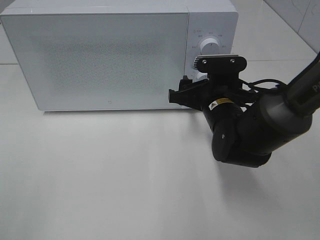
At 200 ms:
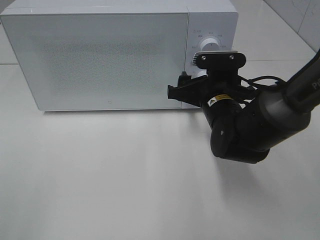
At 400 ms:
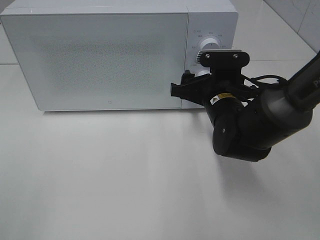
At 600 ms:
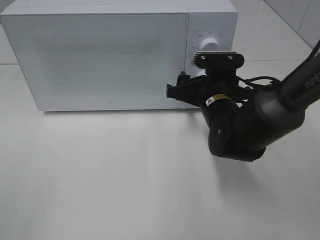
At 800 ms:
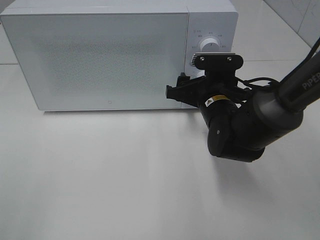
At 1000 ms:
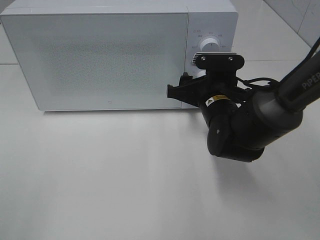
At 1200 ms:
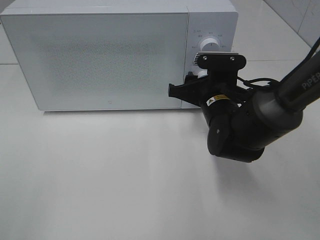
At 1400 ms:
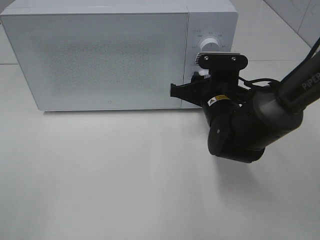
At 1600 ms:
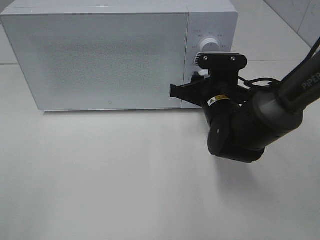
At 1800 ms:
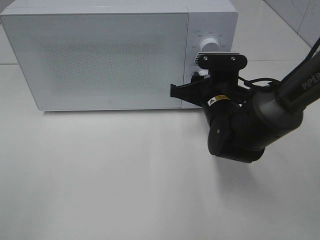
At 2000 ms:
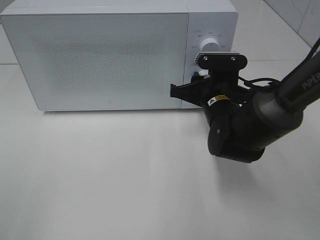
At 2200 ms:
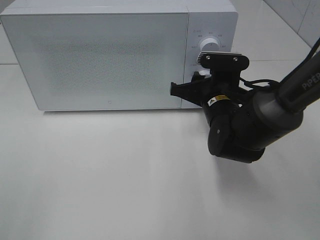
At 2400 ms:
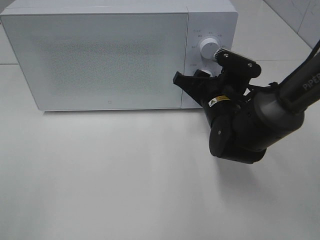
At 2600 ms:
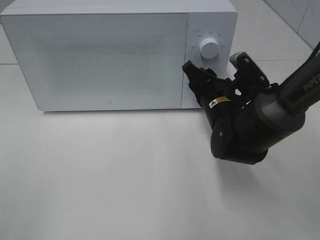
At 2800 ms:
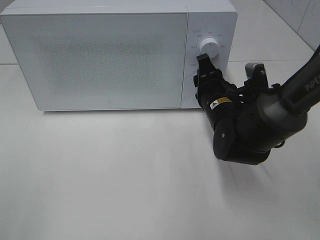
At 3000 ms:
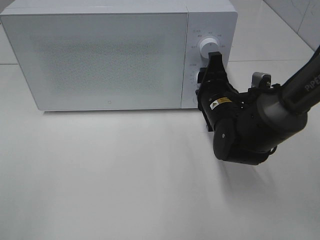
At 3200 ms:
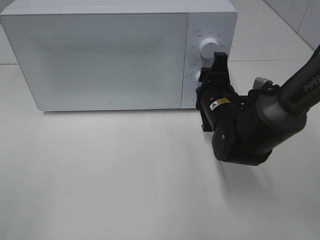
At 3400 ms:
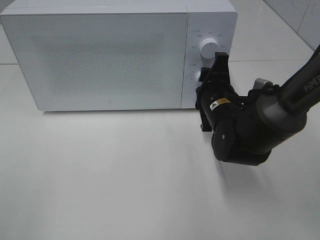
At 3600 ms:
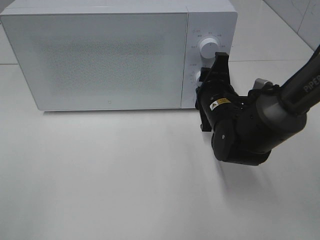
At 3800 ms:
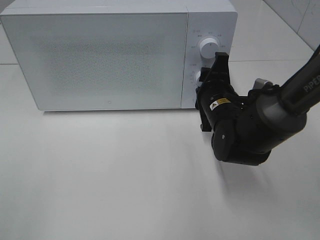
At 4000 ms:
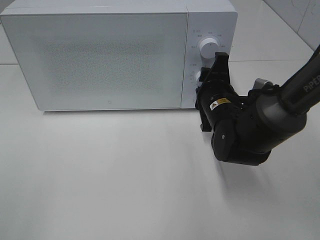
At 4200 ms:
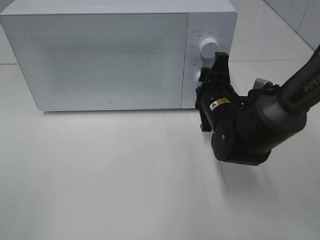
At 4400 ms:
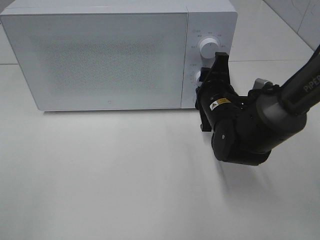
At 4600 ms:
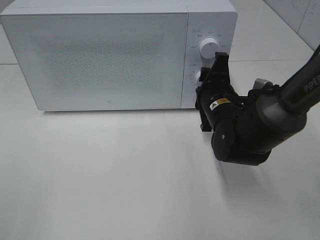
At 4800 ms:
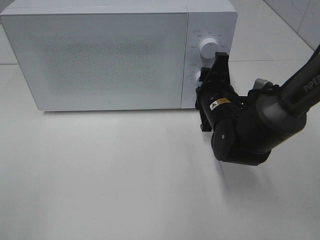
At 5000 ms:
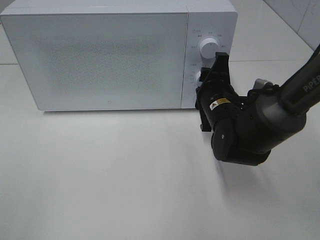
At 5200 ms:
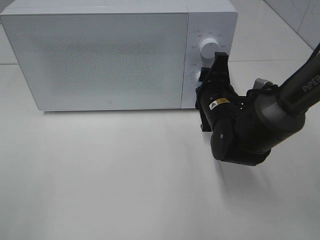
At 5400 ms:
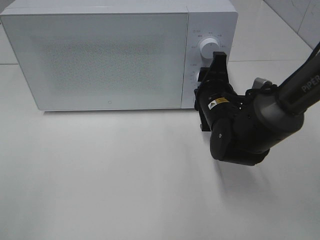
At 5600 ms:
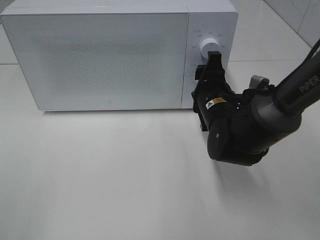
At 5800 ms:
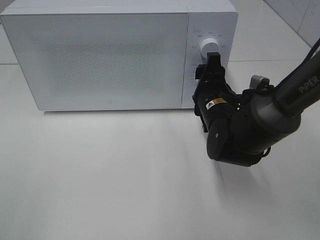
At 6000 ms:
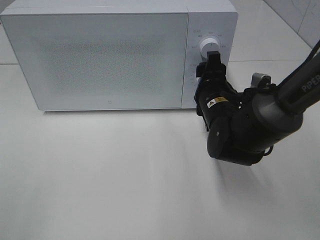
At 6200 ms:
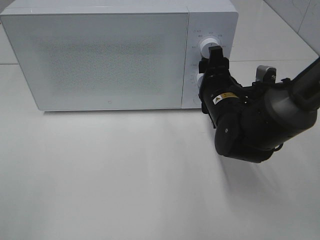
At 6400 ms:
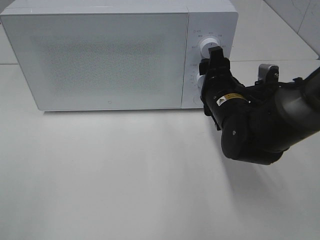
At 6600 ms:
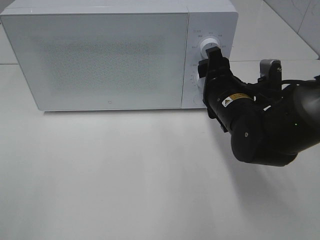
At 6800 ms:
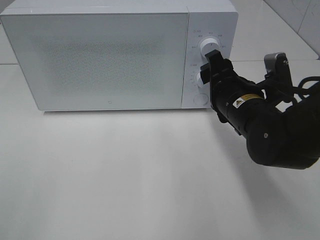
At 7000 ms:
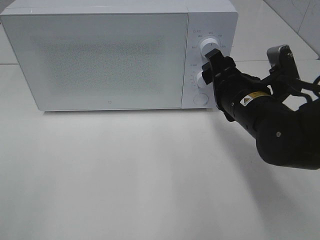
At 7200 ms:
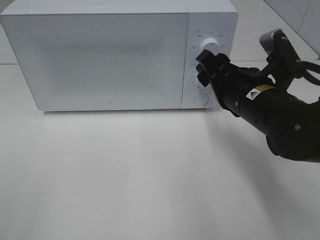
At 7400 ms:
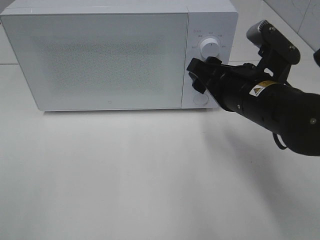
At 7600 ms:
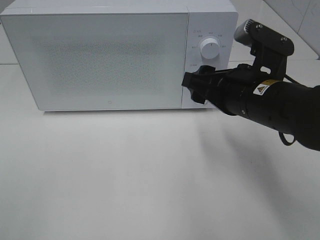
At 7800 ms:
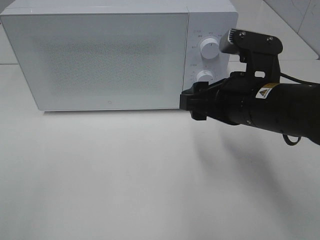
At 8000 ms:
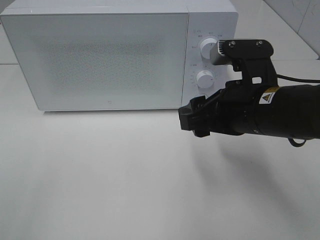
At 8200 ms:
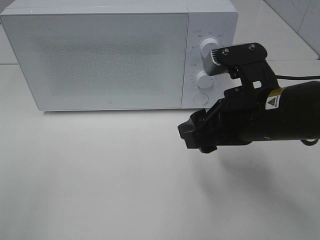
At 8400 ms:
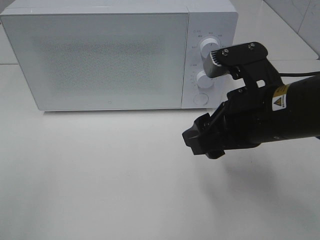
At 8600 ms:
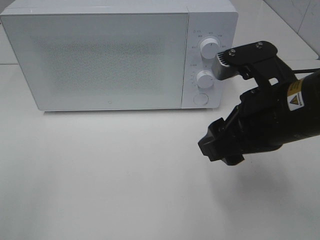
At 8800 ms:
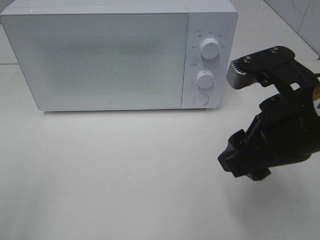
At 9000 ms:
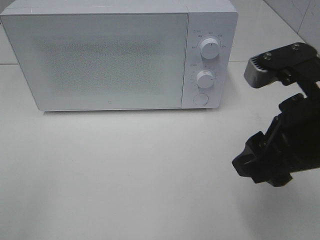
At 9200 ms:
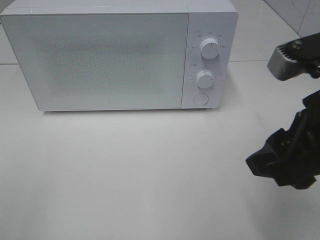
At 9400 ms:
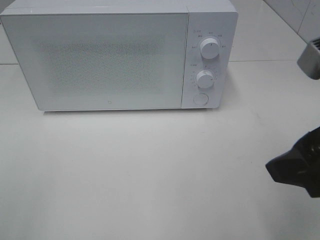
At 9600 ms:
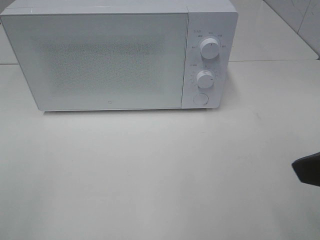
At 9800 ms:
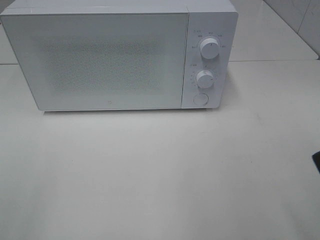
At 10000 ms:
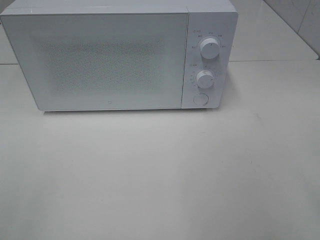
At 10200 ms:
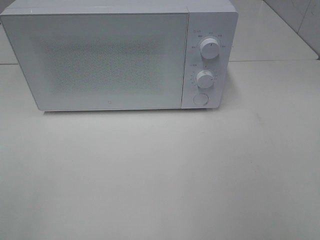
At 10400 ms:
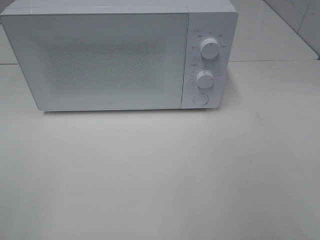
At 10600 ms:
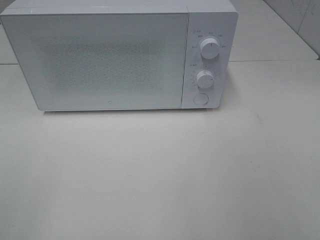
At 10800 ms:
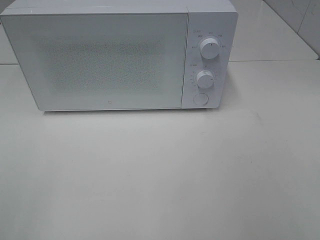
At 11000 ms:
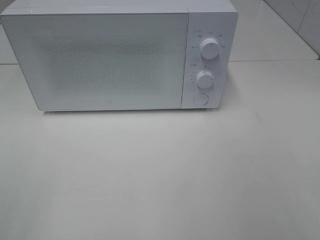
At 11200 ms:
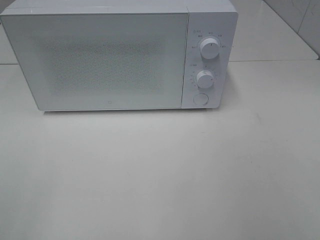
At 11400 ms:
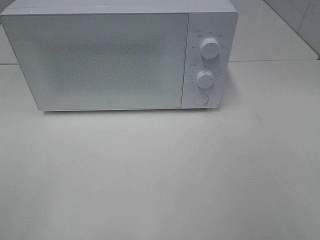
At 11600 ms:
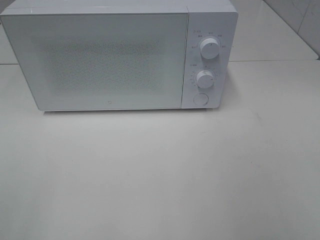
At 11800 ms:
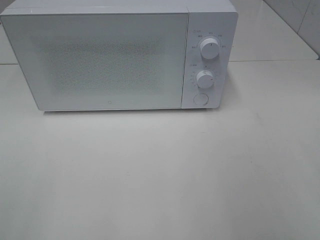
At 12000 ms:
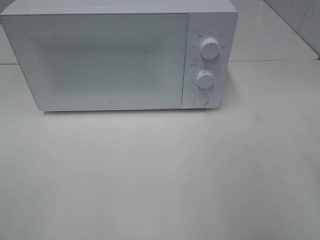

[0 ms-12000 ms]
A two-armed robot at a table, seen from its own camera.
Task of the whole recording: Heat the burger.
Step, 0 ms to 5600 ms: Right hand: twist timer button.
0 ms to 1600 ms: The right gripper closes its fingers.
3000 ms to 6000 ms: The grippers make only small movements.
6000 ms to 7600 ms: The right gripper is displaced upward and backward by some 10 cm.
7600 ms to 9000 ms: The right gripper goes approximately 10 cm backward and upward.
9000 ms to 10400 ms: The right gripper travels backward and to the right by some 15 cm.

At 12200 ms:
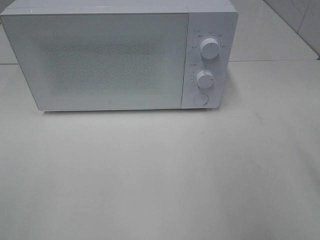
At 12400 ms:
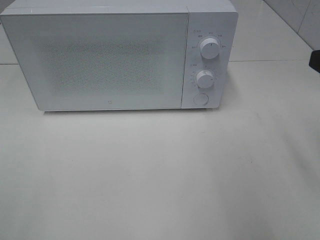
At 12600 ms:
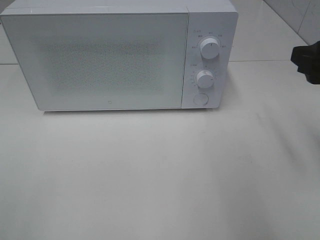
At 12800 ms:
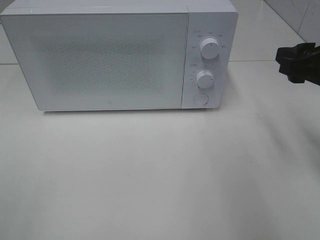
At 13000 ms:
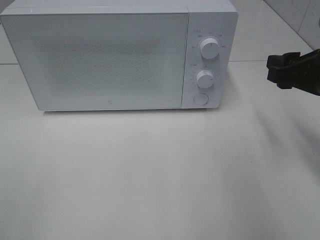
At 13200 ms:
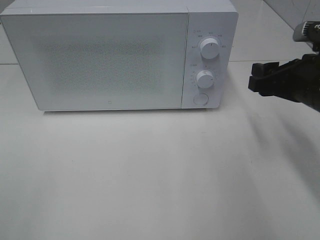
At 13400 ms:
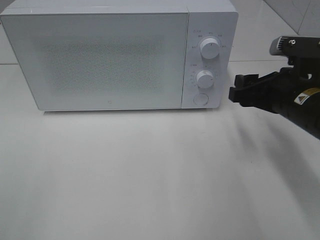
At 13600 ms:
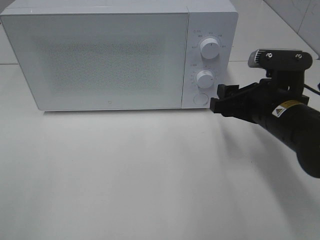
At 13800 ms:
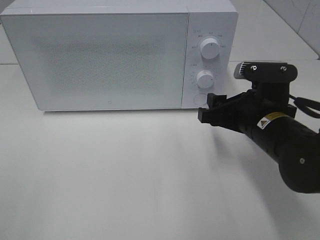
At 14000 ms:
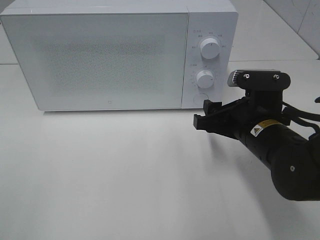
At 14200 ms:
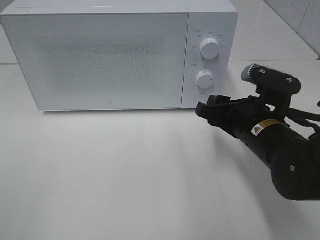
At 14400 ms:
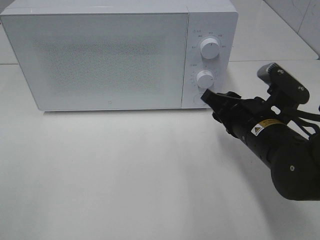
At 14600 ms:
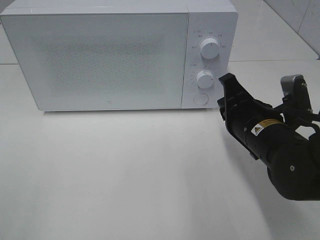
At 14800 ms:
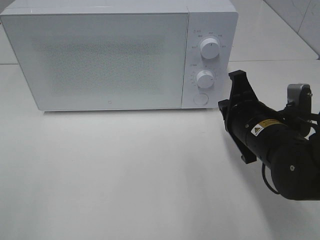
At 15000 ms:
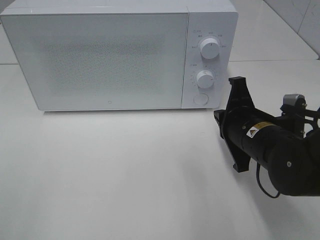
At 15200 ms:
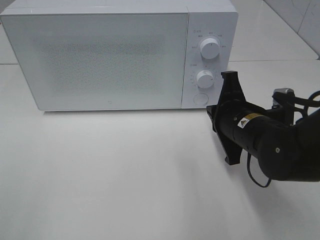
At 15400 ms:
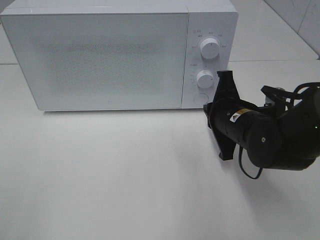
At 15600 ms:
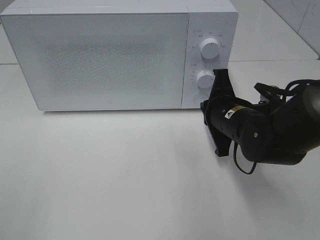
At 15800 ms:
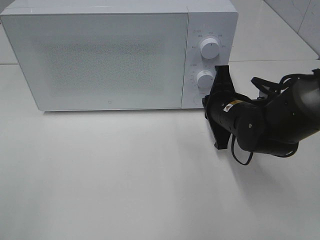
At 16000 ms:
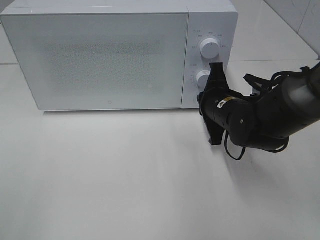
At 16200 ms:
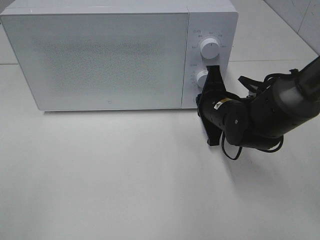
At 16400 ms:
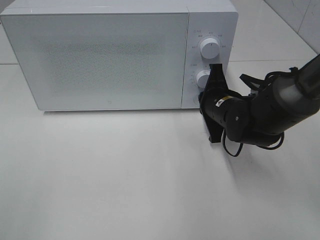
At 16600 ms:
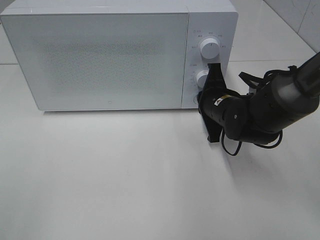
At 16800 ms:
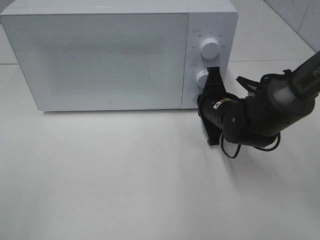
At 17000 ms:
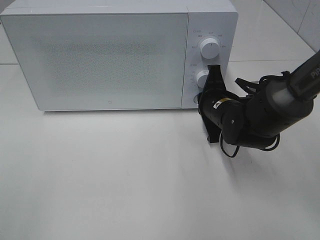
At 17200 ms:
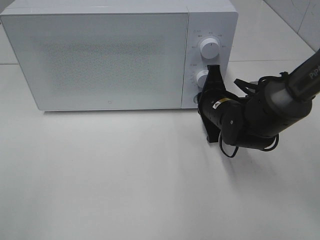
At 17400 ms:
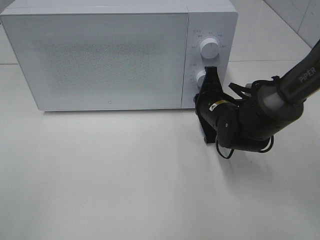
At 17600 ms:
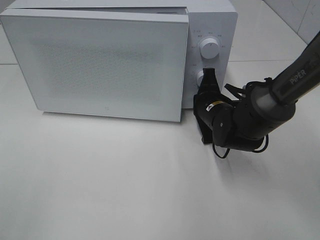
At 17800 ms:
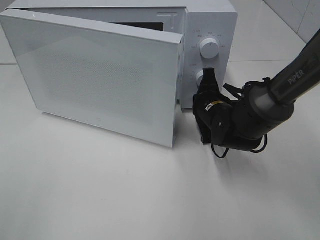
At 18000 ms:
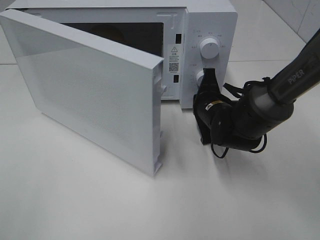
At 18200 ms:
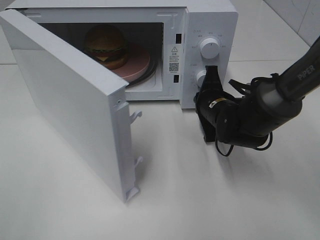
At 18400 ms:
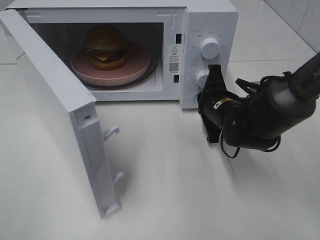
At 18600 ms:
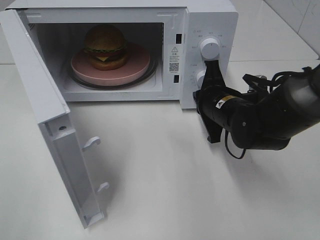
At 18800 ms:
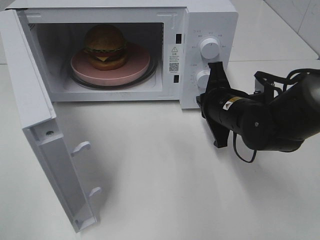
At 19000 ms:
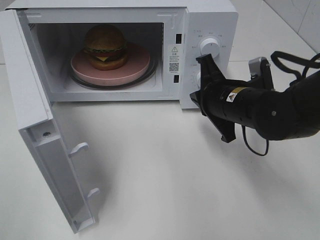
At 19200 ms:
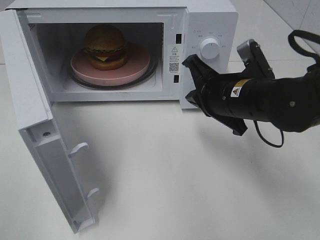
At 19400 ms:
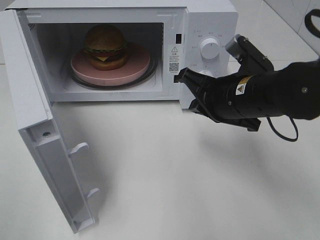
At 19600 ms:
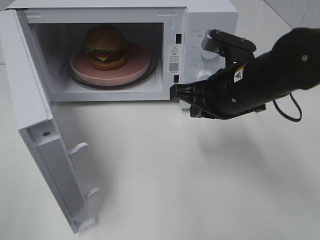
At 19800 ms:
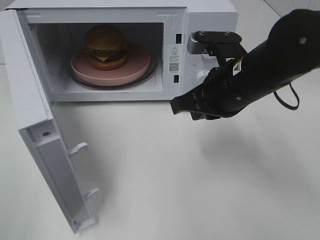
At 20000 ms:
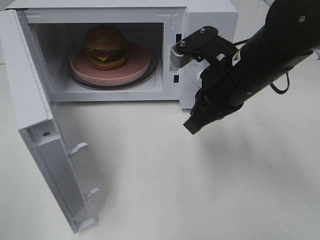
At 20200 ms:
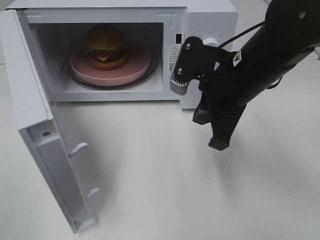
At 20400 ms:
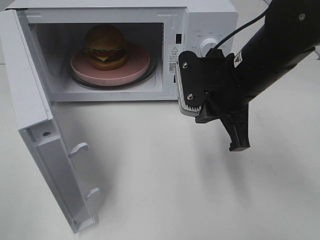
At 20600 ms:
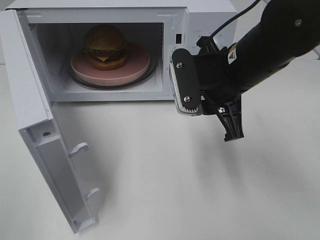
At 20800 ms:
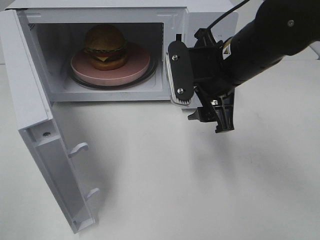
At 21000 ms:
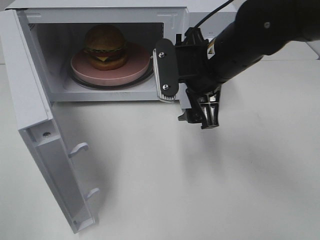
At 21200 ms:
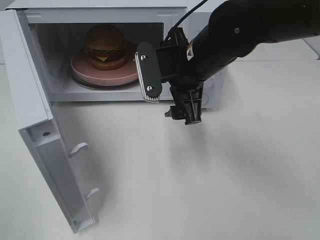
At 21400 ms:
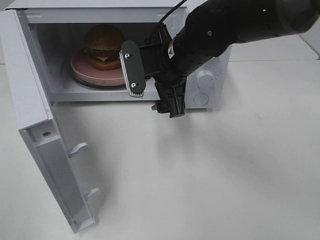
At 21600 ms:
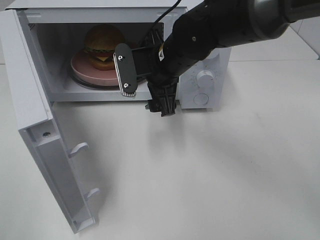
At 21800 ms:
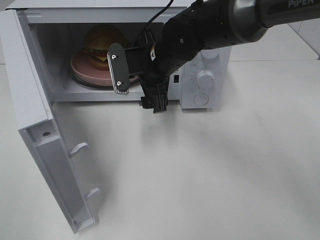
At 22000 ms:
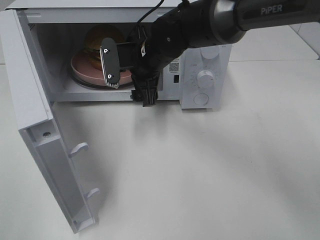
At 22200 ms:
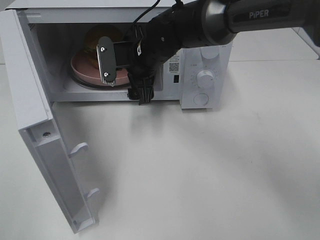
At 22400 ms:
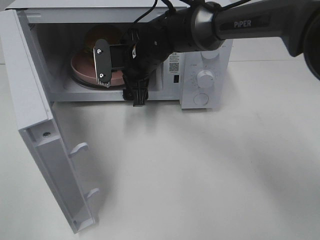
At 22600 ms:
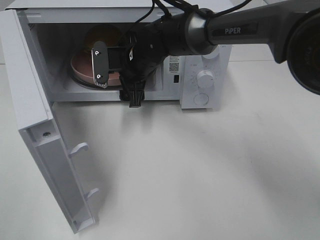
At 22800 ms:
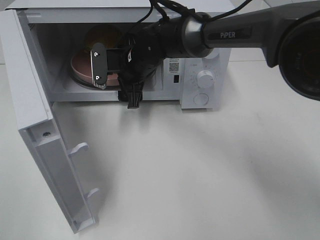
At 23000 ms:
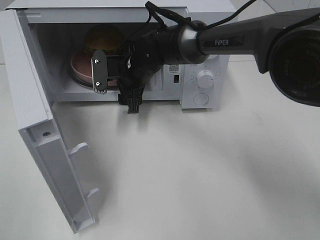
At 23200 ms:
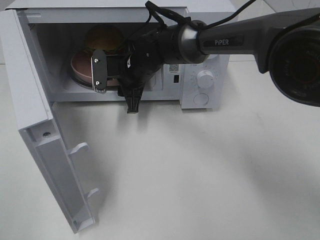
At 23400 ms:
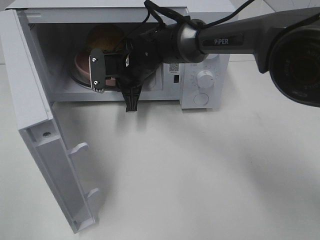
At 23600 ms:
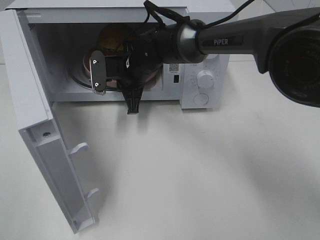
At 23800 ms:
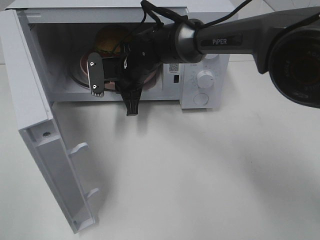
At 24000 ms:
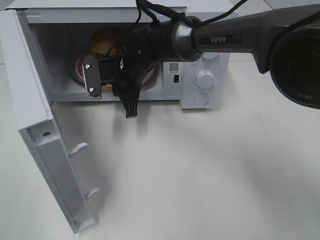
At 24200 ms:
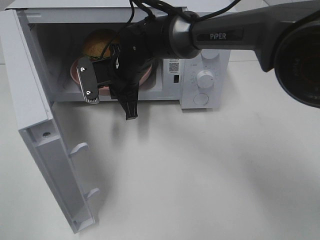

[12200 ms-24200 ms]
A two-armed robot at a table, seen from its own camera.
Task of the whole recording: Heat the burger.
Step, 12200 ms to 18400 ms: Right hand: press the switch.
Step, 18600 ms to 23400 ms: Right hand: grab the plate with the hamburger.
12200 ms to 13800 ms: The right gripper travels downward, to the left and forward by about 20 cm.
13800 ms to 15200 ms: The right gripper closes up.
15200 ms to 16600 ms: The right gripper travels forward by about 10 cm.
18200 ms to 19800 ms: The right gripper goes roughly 15 cm upward and backward.
19800 ms to 21200 ms: The right gripper moves to the left, approximately 5 cm, and opens.
21200 ms to 22600 ms: The right gripper is displaced forward, to the left and downward by some 15 cm.
22600 ms to 24200 ms: The right gripper closes up.
